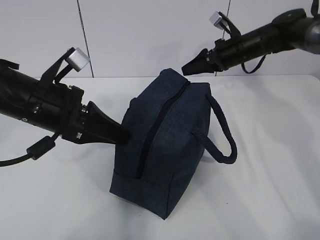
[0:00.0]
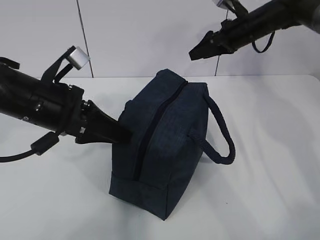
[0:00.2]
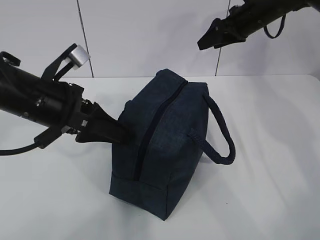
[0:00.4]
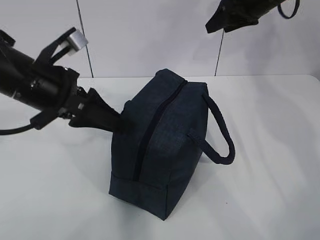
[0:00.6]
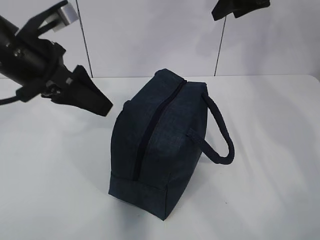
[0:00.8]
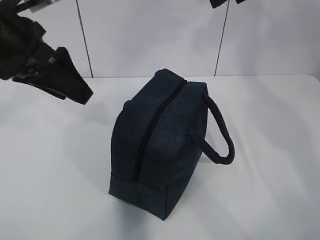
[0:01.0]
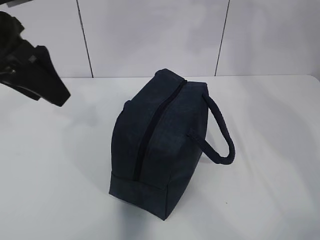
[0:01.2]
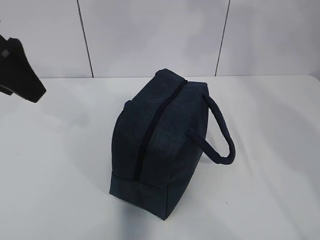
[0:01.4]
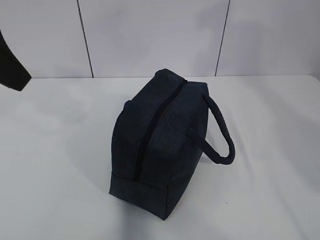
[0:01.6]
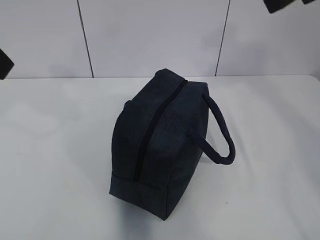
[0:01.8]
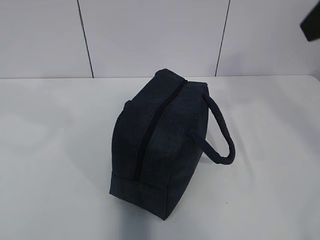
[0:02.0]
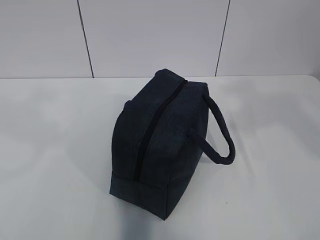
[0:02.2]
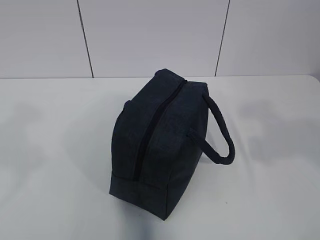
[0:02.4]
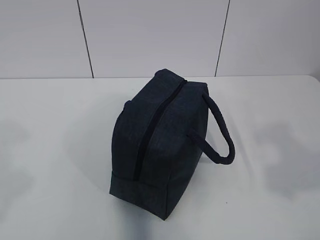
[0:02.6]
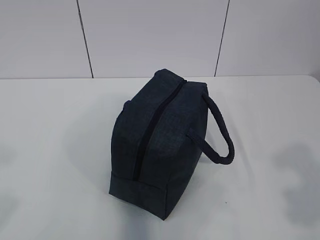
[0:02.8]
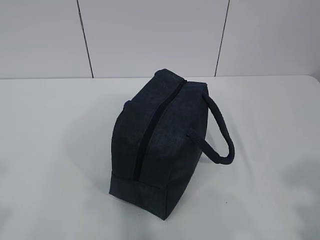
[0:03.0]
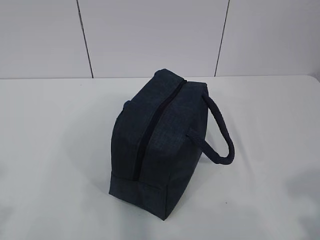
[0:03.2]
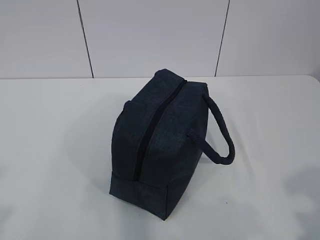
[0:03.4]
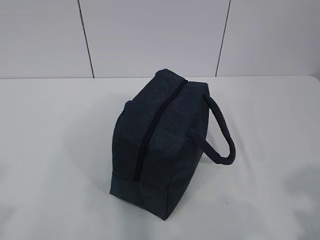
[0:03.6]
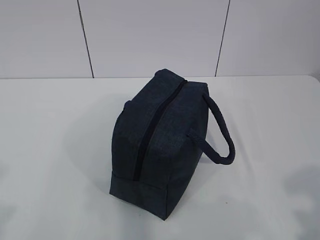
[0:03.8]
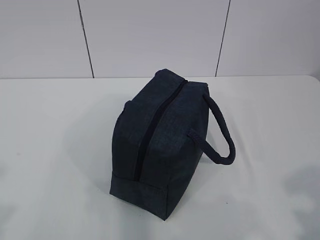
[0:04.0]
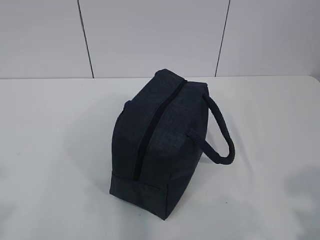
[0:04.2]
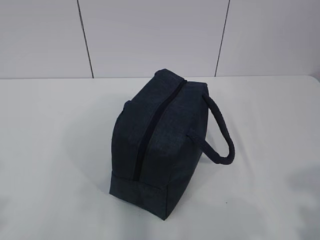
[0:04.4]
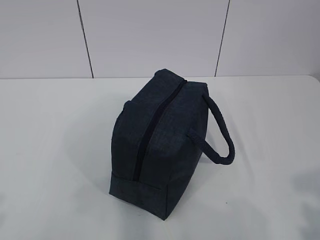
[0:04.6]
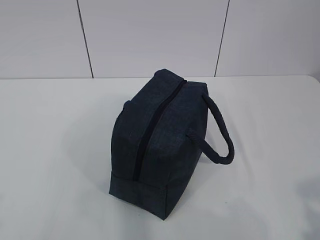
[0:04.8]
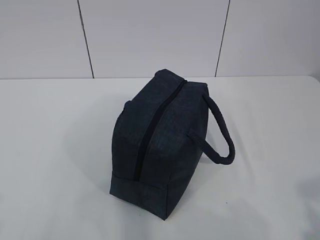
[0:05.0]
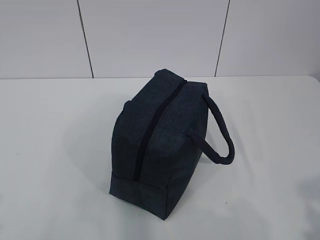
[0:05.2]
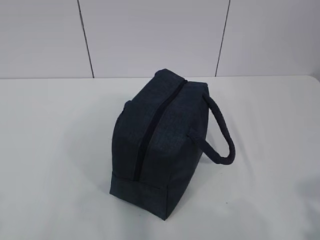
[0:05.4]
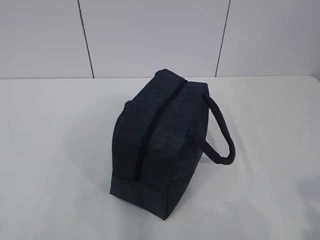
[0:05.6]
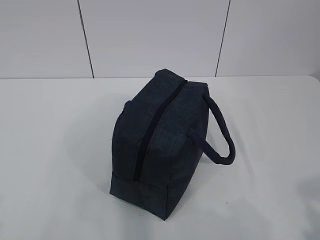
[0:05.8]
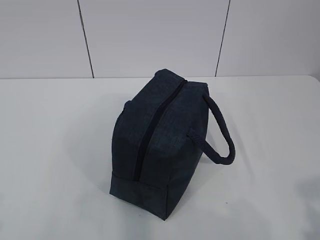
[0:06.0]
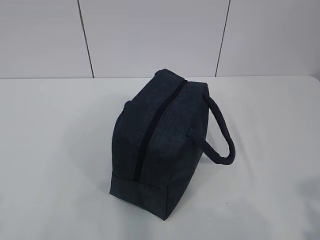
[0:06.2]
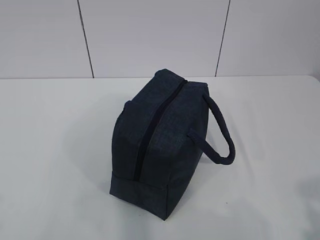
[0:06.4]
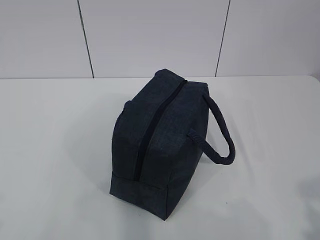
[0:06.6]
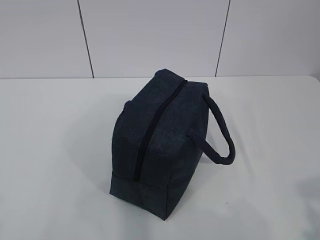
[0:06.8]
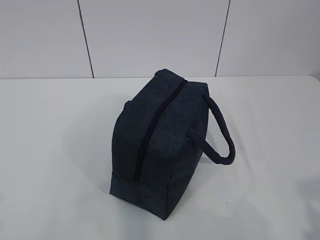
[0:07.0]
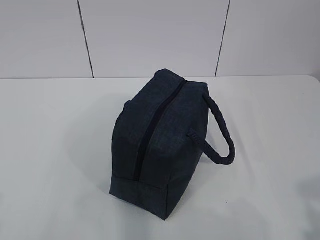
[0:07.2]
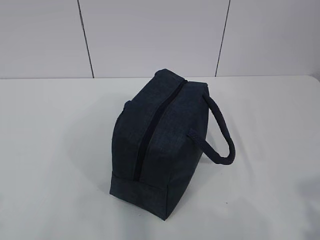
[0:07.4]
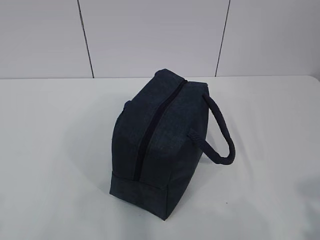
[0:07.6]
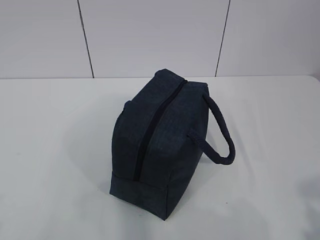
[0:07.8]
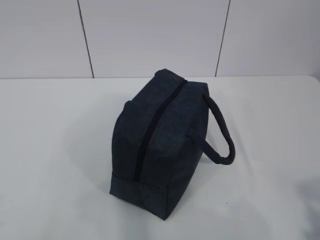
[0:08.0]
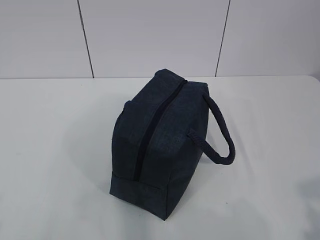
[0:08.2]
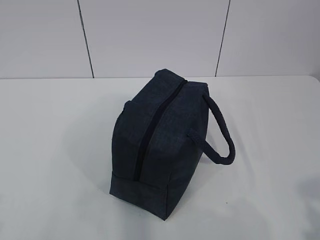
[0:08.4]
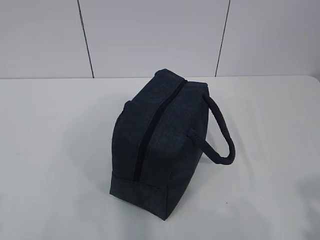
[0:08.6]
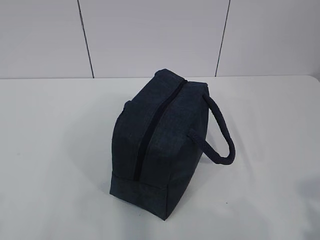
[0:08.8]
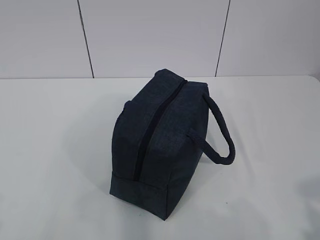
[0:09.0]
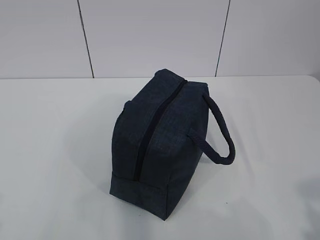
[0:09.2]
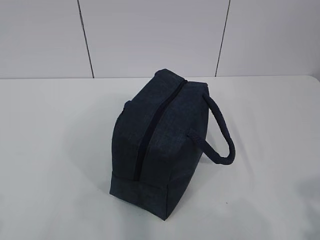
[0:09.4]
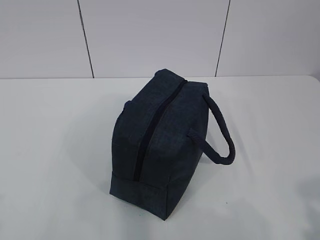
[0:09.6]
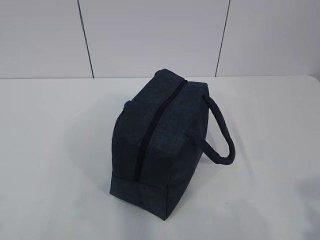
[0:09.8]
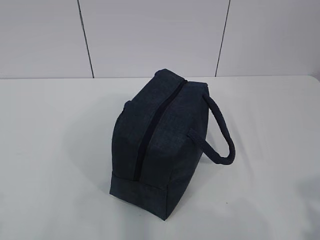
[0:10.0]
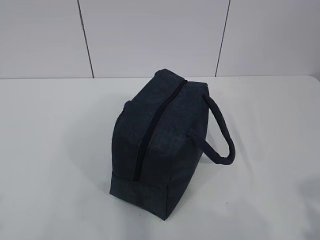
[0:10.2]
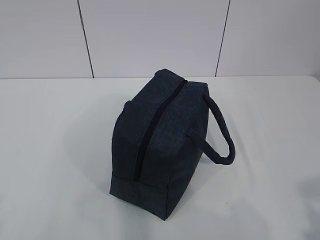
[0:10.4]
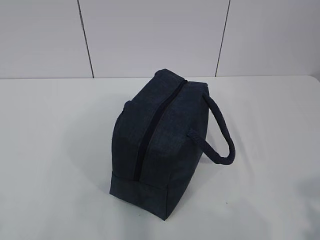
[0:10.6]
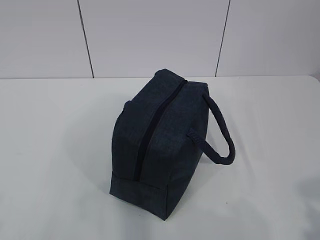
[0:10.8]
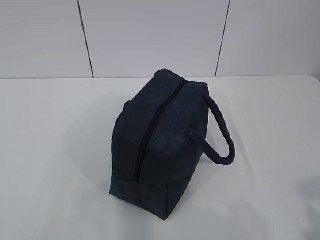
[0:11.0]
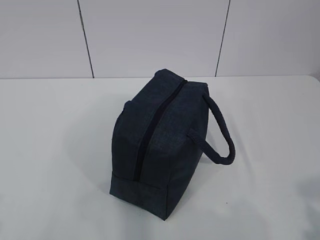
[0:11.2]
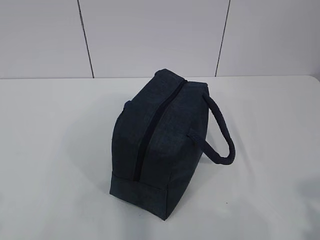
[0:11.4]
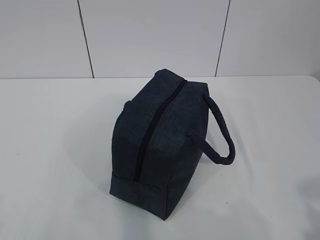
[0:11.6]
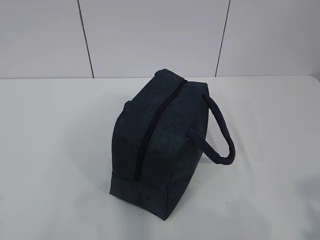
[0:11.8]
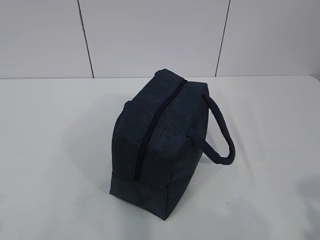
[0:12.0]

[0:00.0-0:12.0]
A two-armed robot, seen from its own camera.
0:00.0 to 0:01.6: The left gripper moves upward, roughly 15 cm, and opens its fingers. Meanwhile the right gripper heads upward and backward, covering approximately 30 cm.
0:01.6 to 0:03.0: The right gripper travels backward and downward by about 35 cm, while the left gripper goes about 20 cm backward.
0:06.0 to 0:12.0: The two grippers keep their place.

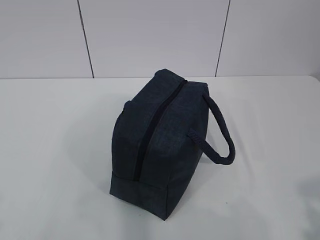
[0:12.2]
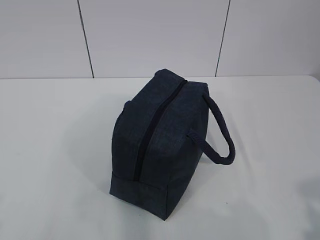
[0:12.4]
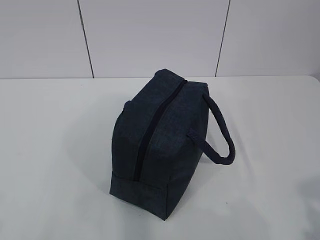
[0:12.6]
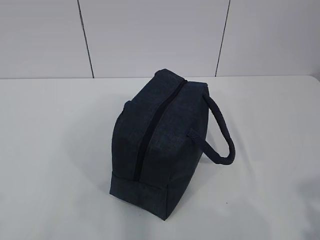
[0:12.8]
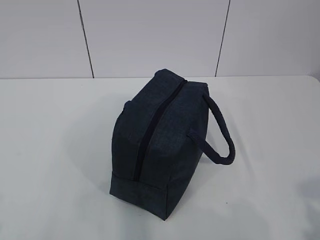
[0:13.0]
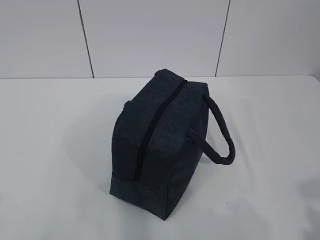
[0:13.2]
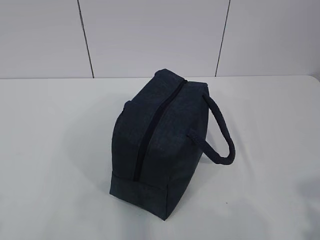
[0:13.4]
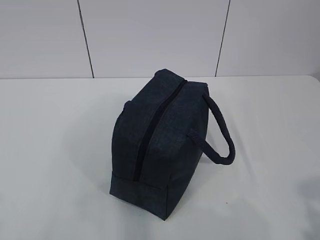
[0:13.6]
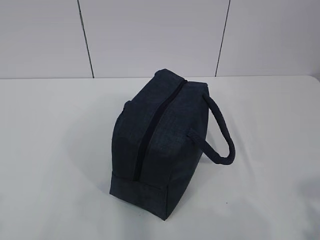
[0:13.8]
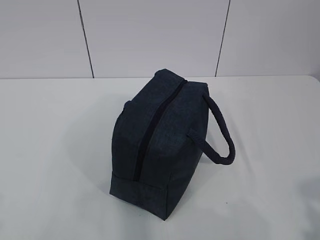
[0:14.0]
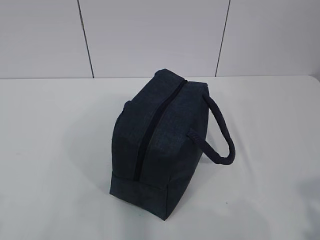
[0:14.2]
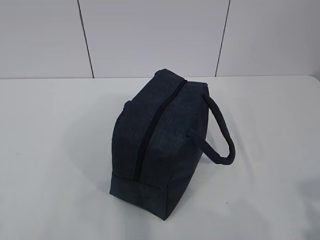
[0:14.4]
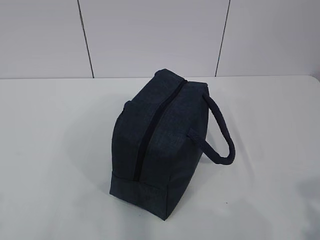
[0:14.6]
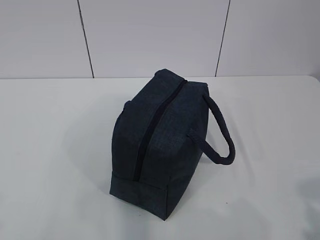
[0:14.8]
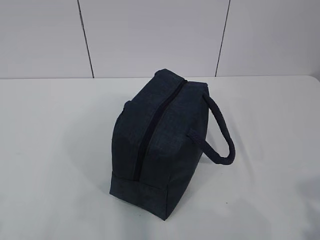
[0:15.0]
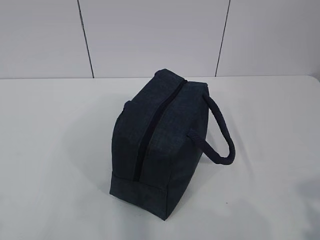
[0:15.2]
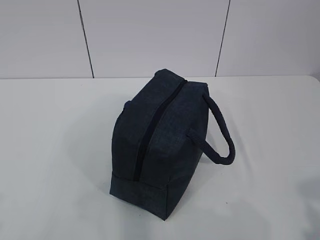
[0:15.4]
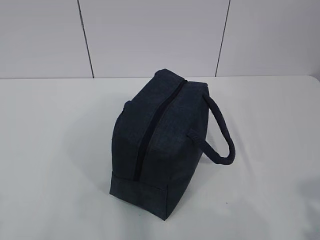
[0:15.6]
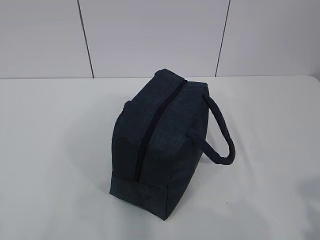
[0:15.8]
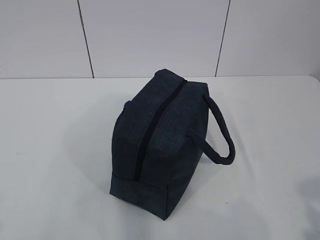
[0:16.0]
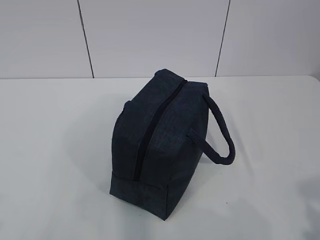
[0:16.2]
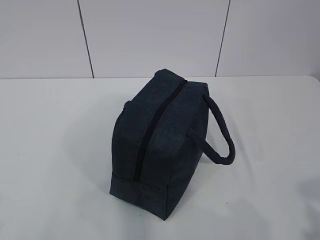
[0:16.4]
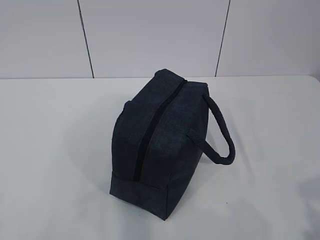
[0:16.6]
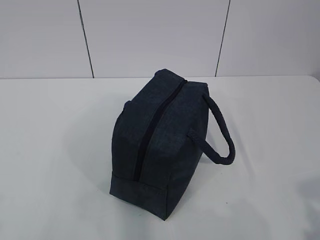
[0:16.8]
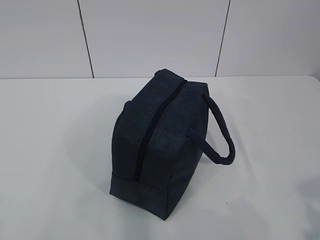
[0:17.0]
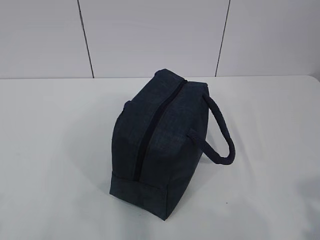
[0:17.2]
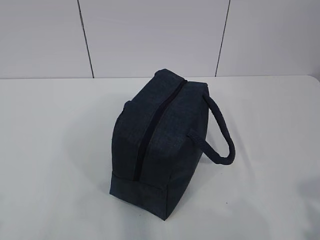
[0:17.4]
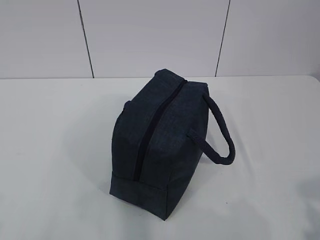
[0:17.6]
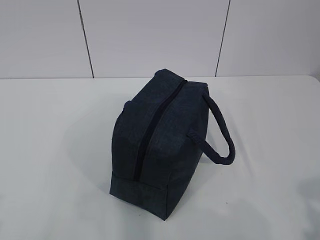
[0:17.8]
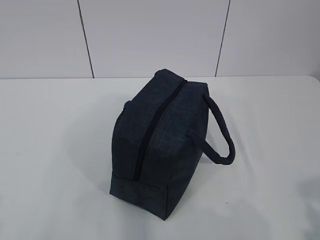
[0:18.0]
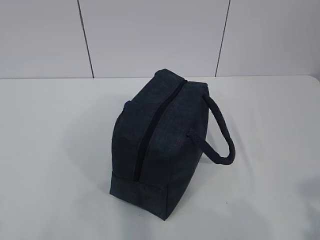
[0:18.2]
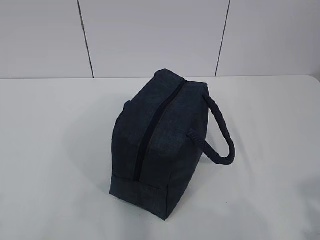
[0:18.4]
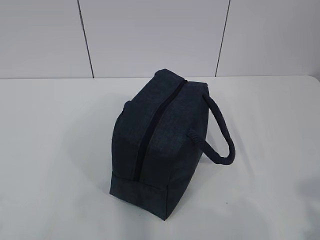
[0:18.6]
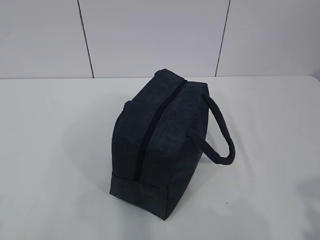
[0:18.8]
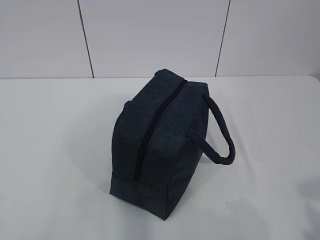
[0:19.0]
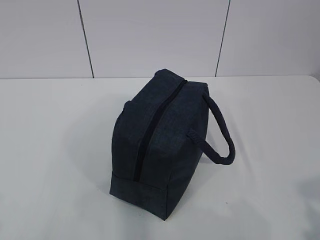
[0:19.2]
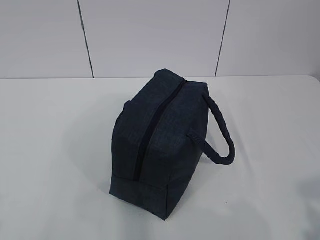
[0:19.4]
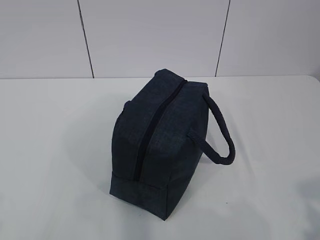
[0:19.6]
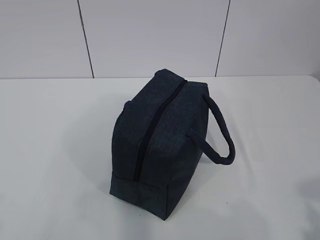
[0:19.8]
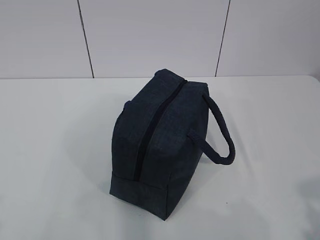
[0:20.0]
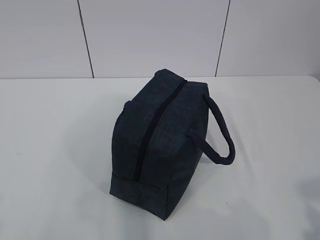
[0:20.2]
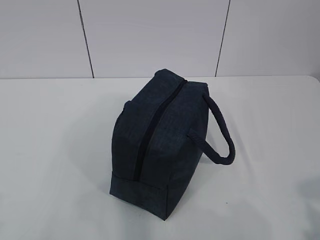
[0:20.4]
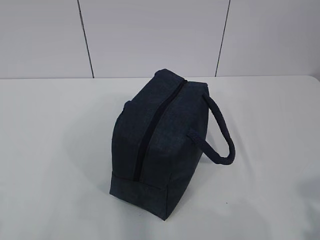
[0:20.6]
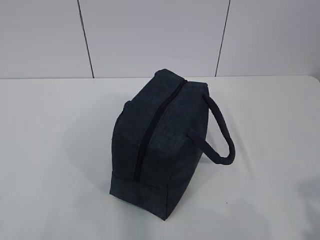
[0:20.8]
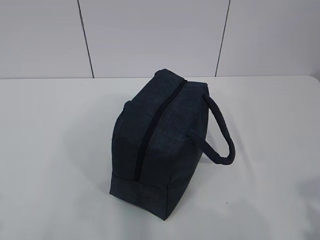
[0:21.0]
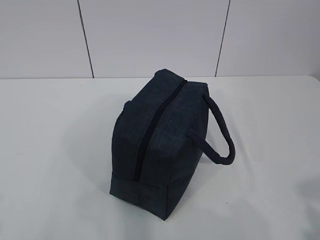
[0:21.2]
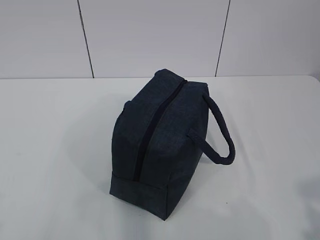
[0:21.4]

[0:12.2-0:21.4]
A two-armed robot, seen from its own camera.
0:12.2 to 0:21.4: Both grippers stay about where they are.

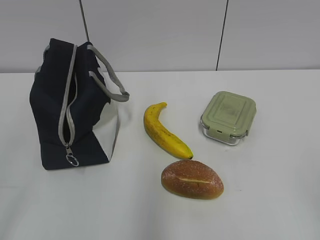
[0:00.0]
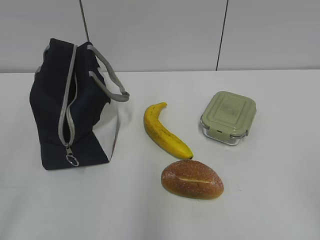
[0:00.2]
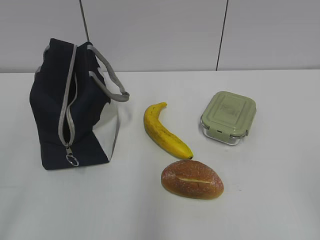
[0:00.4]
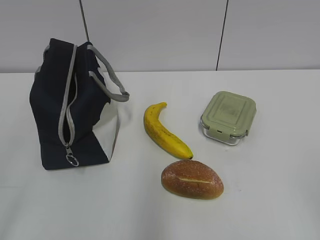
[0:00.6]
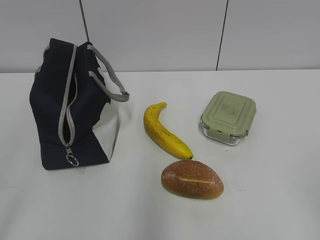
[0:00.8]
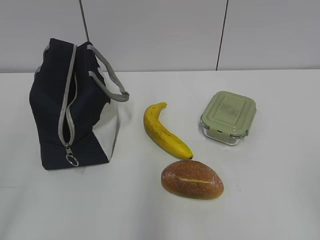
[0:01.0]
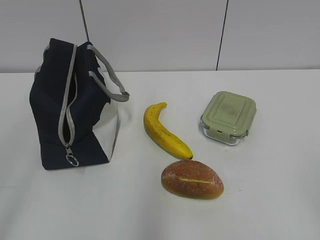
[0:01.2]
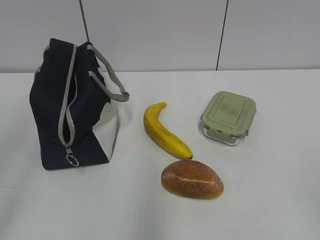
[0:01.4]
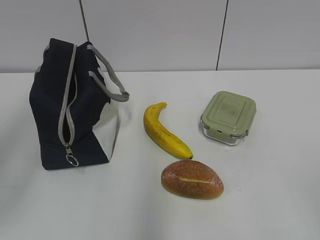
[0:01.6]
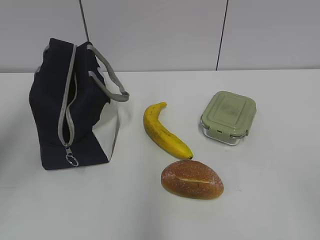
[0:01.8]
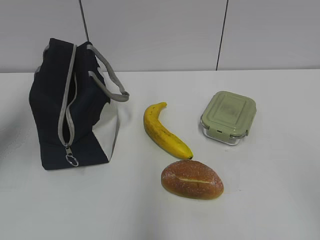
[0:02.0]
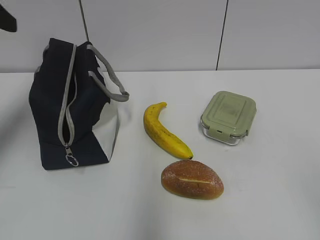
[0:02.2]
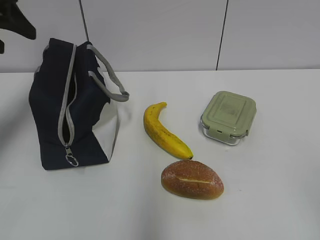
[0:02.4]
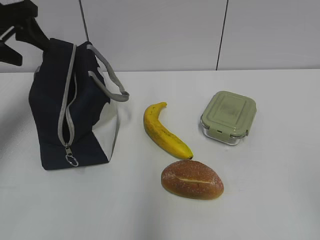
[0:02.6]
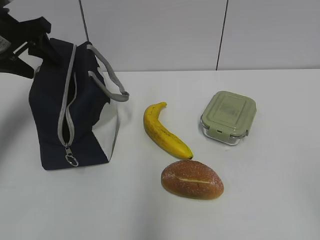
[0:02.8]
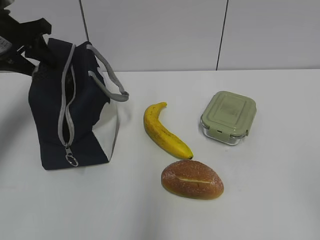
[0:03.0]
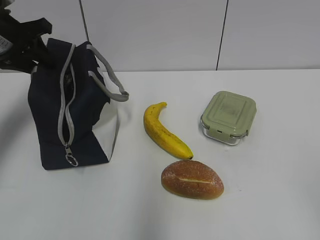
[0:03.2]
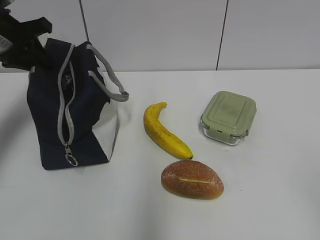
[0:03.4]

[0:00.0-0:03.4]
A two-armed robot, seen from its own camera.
0:01.6 to 0:03.4: The left gripper heads forward, covering some 30 cm, and closes its fingers.
